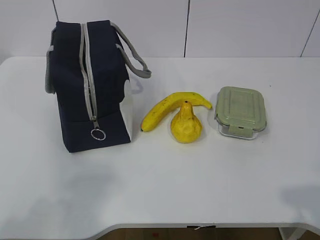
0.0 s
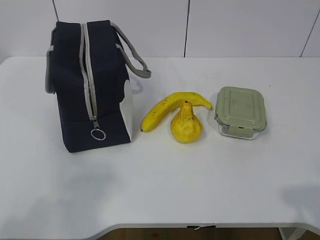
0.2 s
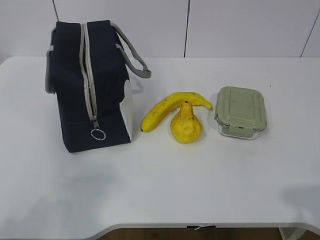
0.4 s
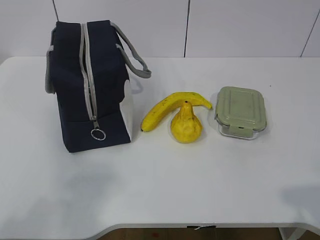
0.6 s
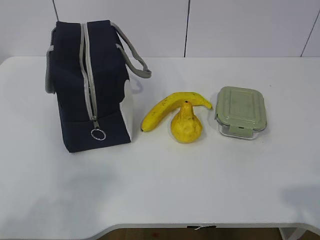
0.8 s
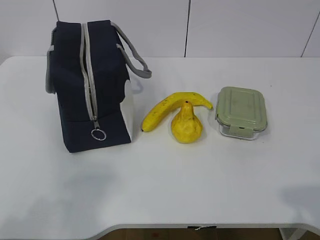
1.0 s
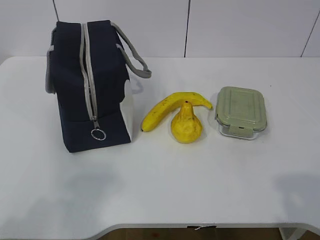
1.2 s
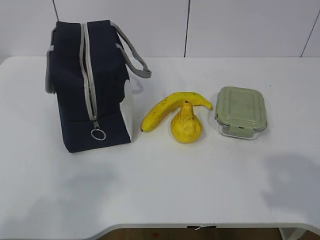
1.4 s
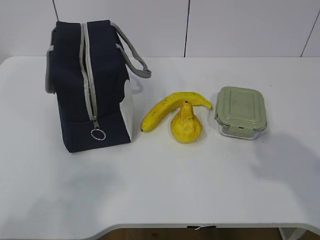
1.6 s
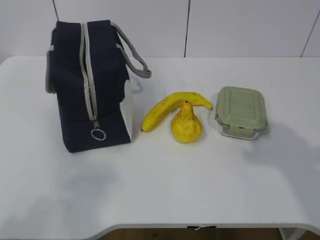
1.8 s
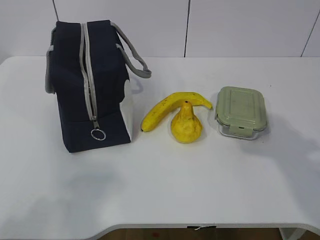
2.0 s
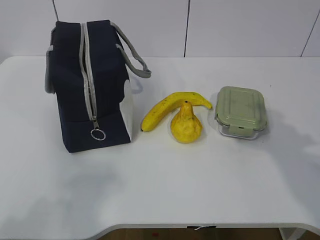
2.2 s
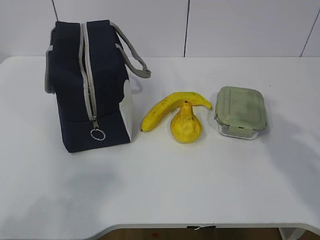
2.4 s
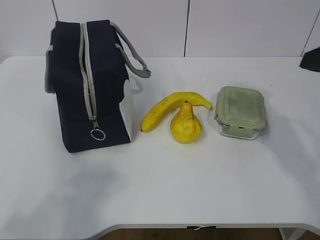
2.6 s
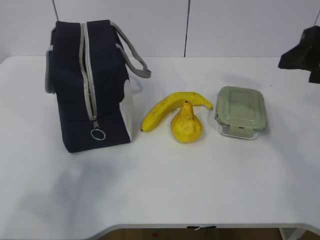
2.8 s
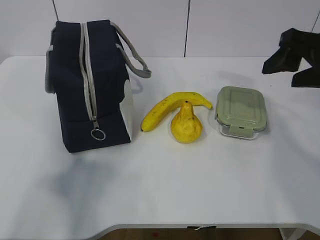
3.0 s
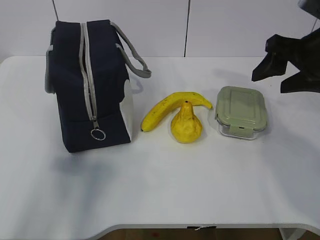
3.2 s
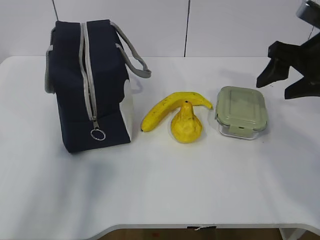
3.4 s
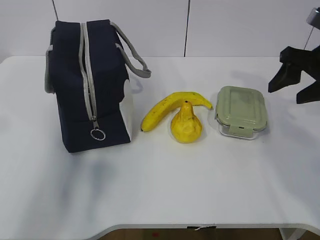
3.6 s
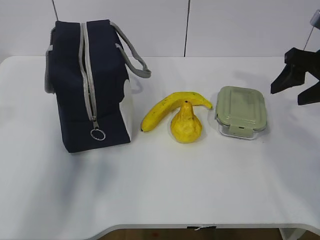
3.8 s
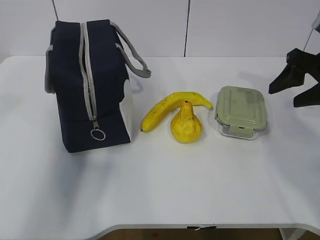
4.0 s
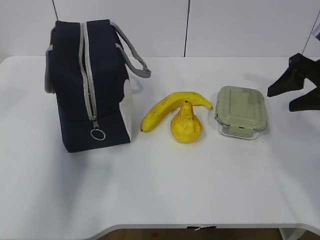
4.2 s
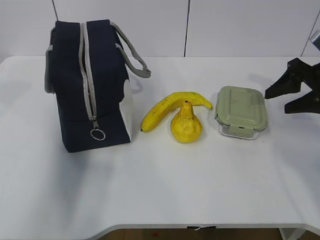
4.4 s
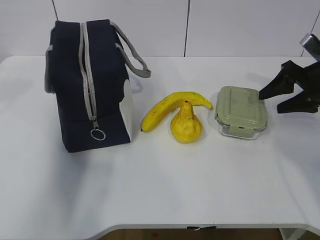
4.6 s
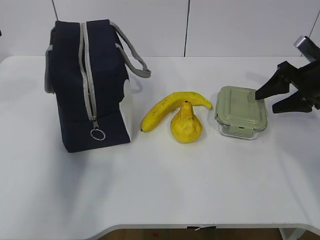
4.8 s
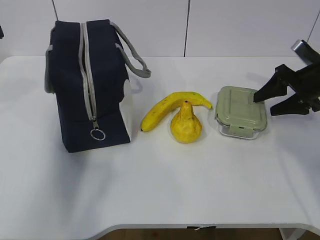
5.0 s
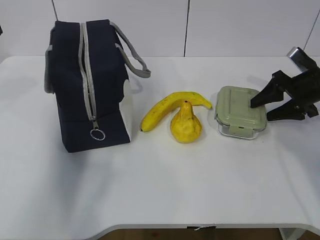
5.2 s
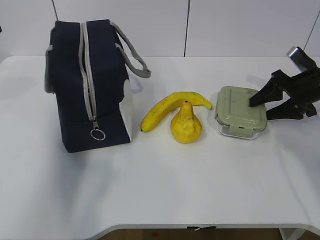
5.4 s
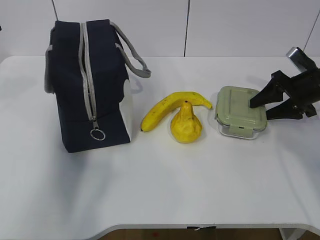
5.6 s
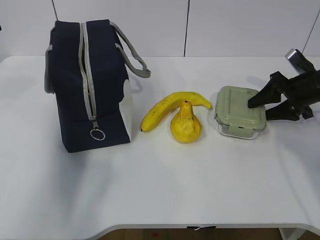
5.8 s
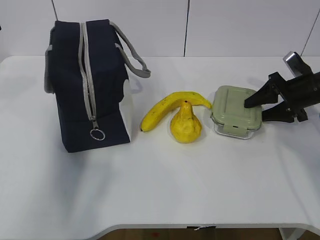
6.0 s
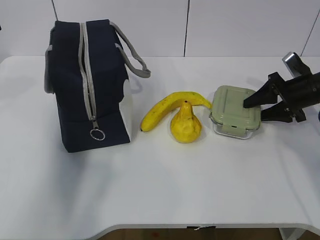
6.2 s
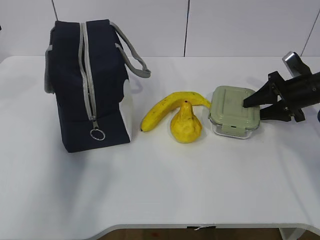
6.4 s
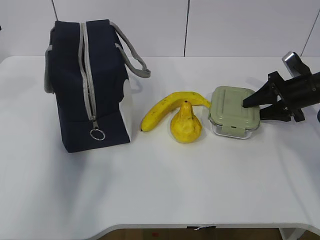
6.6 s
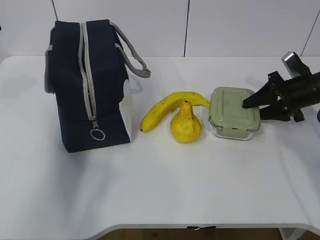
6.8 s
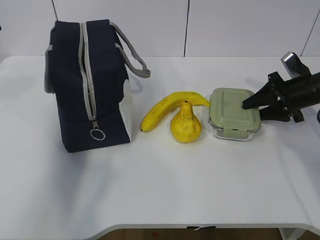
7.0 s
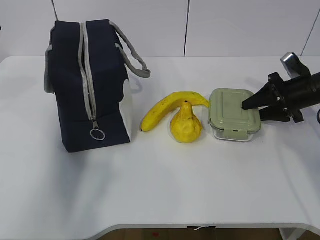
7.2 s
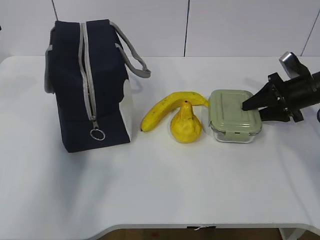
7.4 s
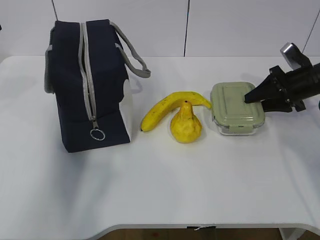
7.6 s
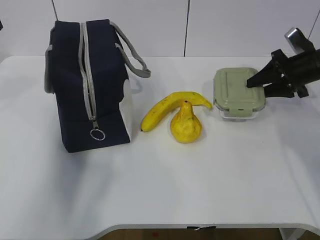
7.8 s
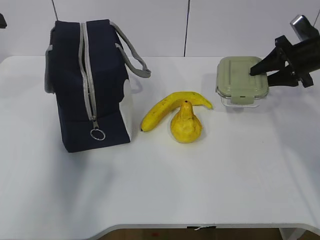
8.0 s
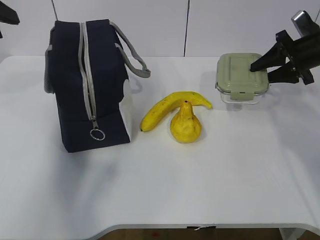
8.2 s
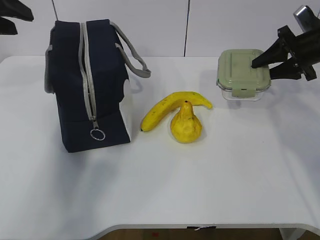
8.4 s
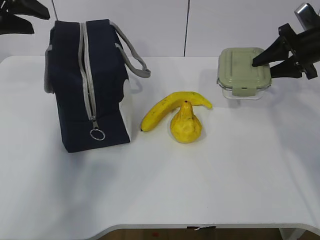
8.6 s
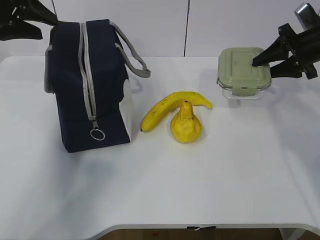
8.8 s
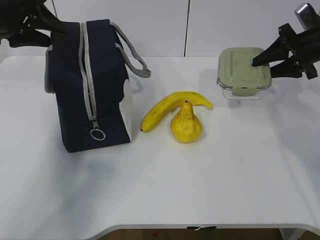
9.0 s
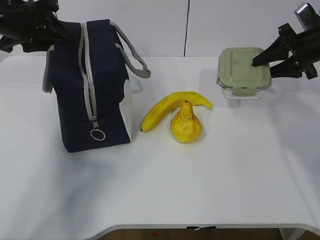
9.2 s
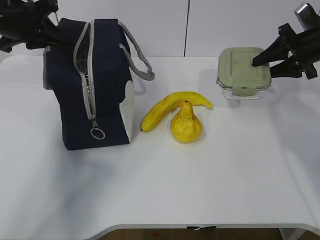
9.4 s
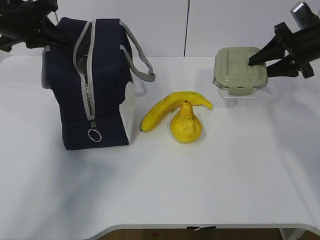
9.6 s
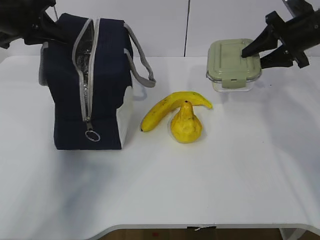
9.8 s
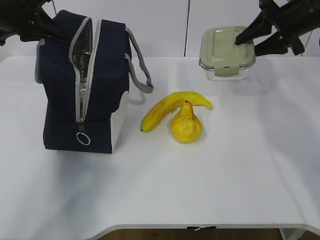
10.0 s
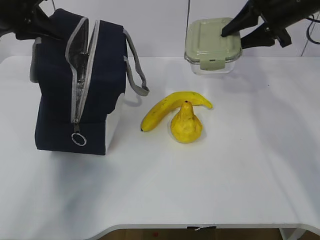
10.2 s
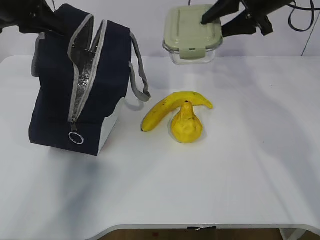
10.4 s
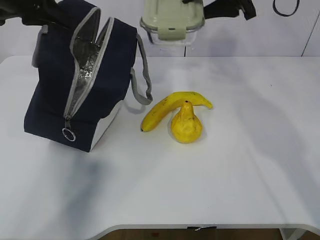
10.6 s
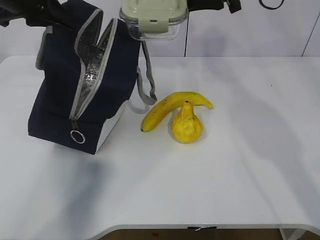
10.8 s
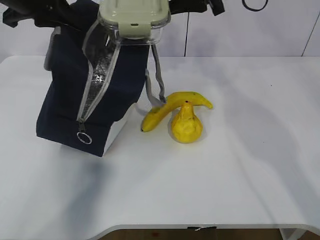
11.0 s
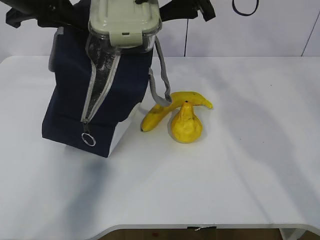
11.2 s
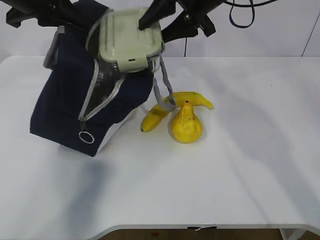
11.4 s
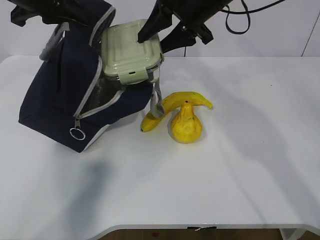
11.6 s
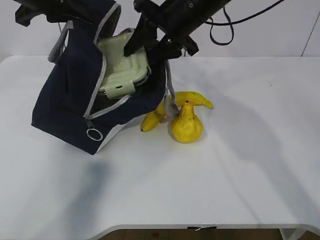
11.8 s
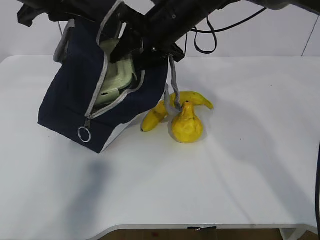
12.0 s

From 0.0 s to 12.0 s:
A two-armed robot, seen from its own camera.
Step, from 0.0 s to 5.6 s: Grab the lunch box with your right hand.
Step, from 6.0 s to 9.2 s: Grab the lunch bag with your left hand.
Step, from 9.4 s to 11.6 s: Place it into the bag with your right hand.
From 1.6 s to 3.0 s: The left gripper moves forward, some 5 cm, while the right gripper shifts about 25 cm forward.
From 3.0 s to 4.4 s: The left gripper shifts about 20 cm forward; the right gripper heads downward, to the right and forward, covering approximately 15 cm.
From 4.4 s to 6.0 s: The right gripper travels downward by some 5 cm.
From 6.0 s to 7.6 s: There are only small adjustments of the grippers.
From 7.6 s to 9.0 s: The left gripper moves forward, approximately 10 cm; the right gripper moves upward, about 5 cm.
From 9.0 s to 10.4 s: The right gripper moves to the left and upward, roughly 15 cm. Meanwhile the left gripper closes.
From 10.4 s to 12.0 s: The left gripper shifts by about 5 cm, while the right gripper is displaced to the left by roughly 15 cm.

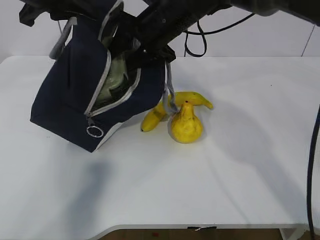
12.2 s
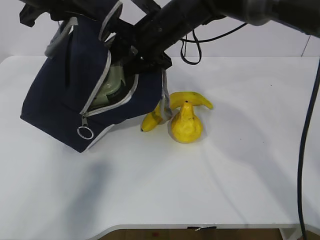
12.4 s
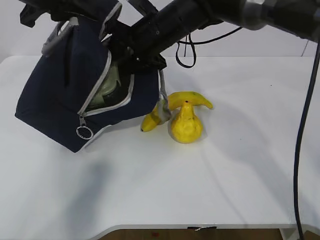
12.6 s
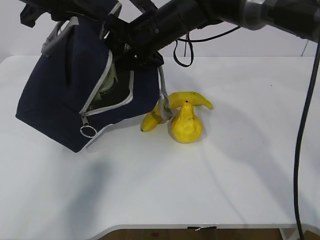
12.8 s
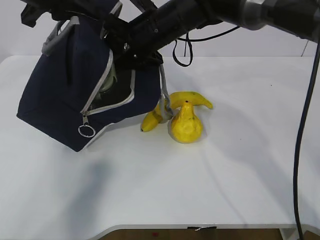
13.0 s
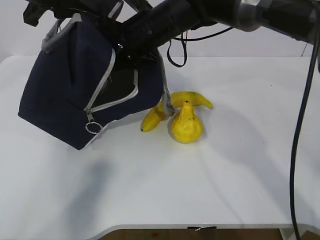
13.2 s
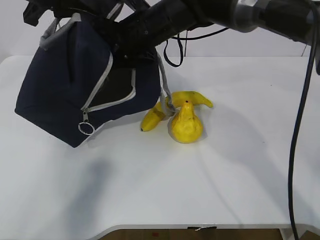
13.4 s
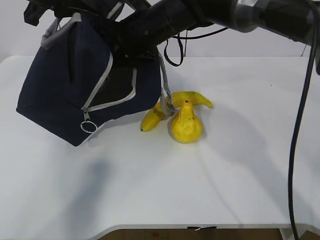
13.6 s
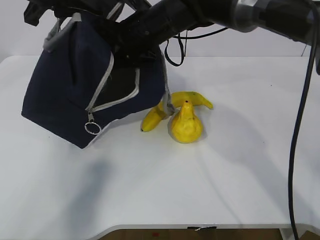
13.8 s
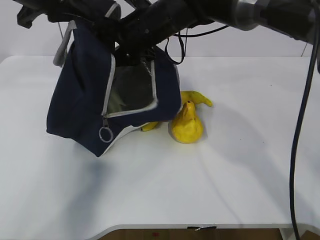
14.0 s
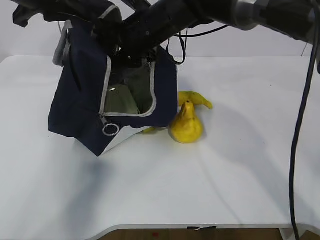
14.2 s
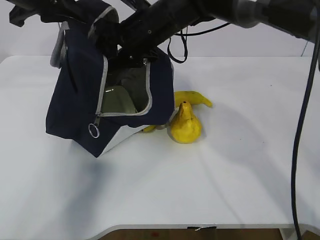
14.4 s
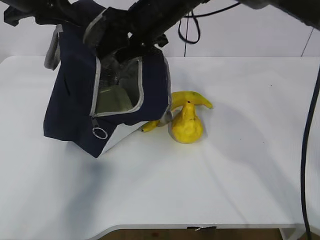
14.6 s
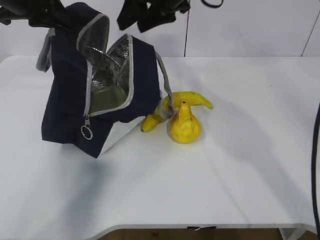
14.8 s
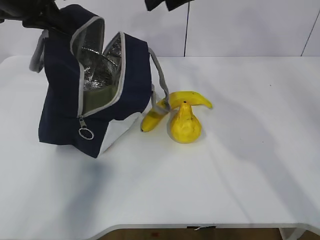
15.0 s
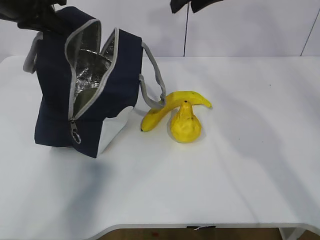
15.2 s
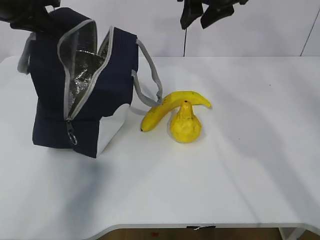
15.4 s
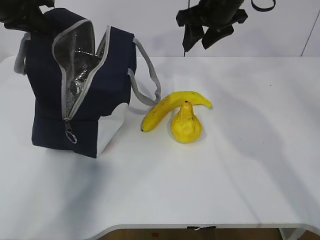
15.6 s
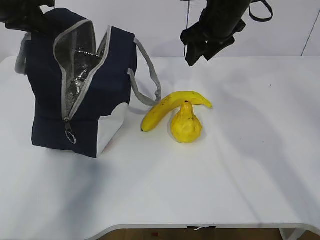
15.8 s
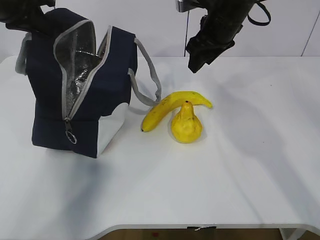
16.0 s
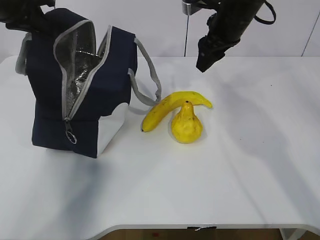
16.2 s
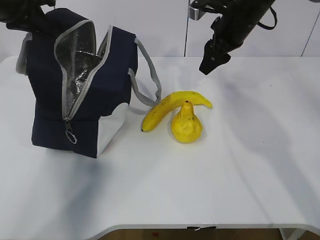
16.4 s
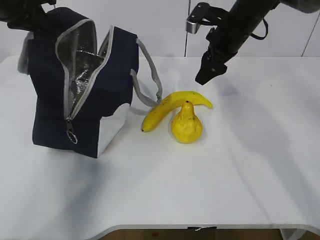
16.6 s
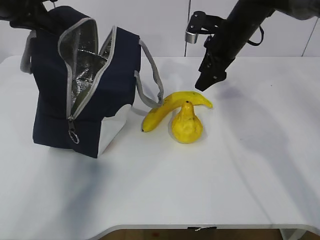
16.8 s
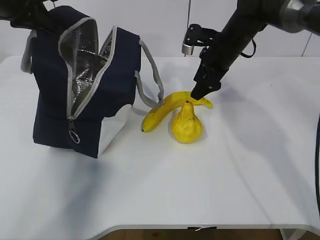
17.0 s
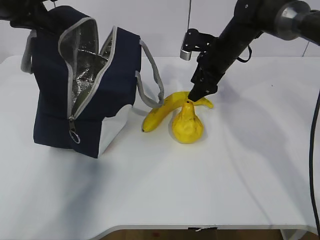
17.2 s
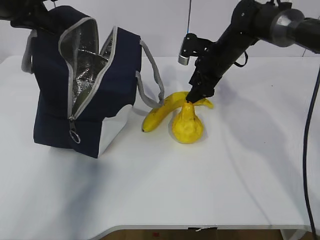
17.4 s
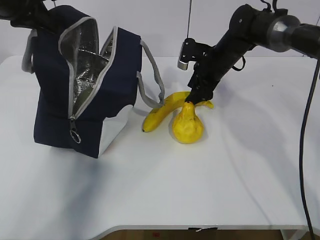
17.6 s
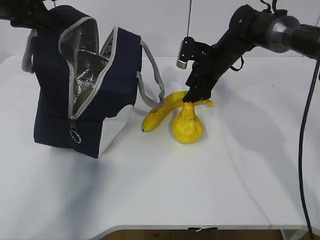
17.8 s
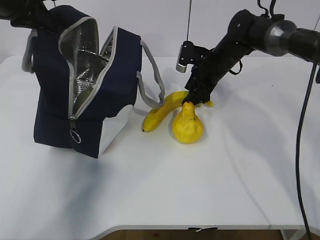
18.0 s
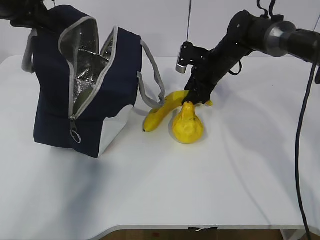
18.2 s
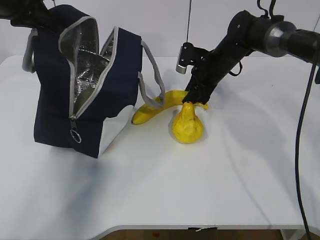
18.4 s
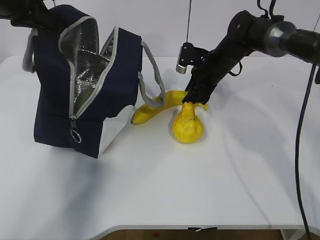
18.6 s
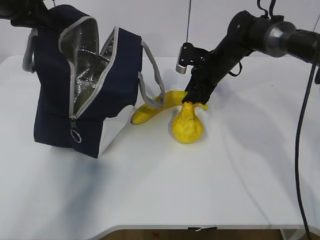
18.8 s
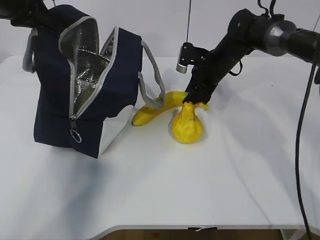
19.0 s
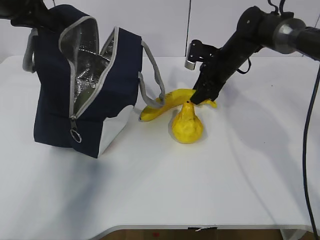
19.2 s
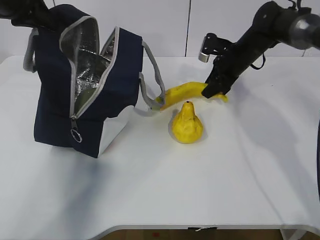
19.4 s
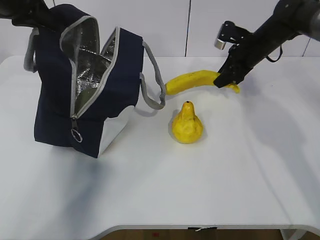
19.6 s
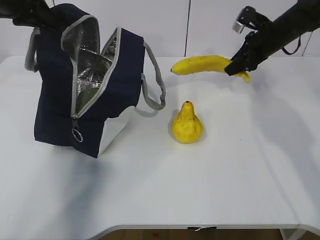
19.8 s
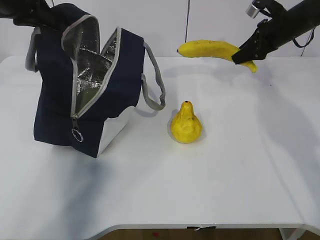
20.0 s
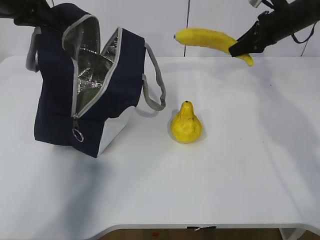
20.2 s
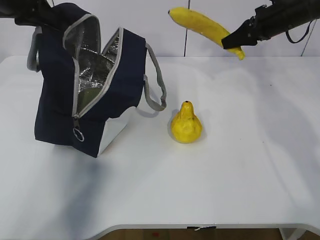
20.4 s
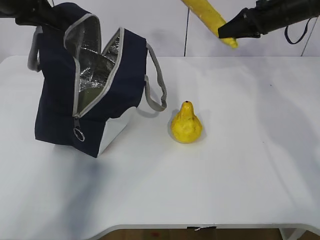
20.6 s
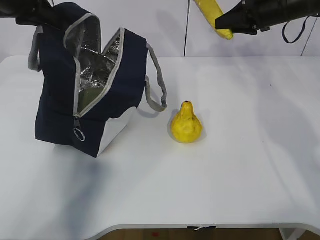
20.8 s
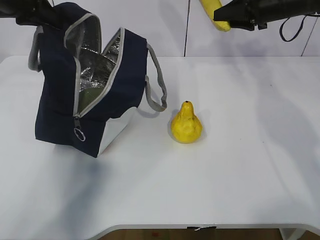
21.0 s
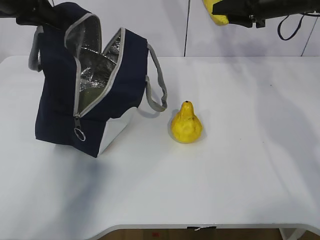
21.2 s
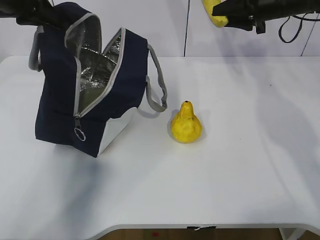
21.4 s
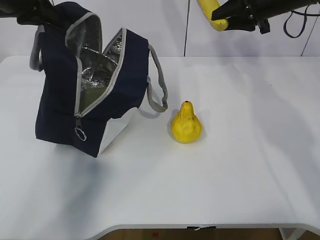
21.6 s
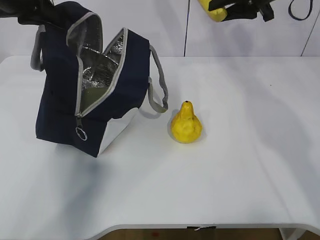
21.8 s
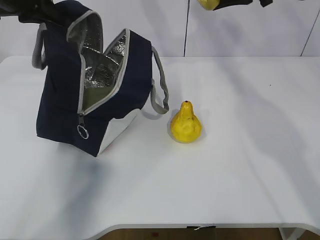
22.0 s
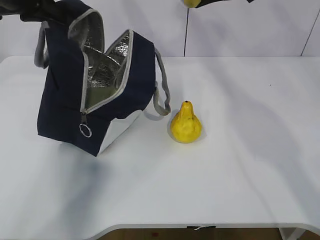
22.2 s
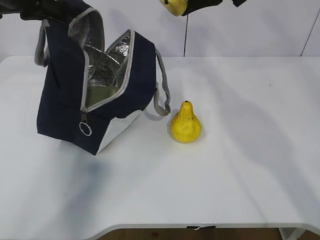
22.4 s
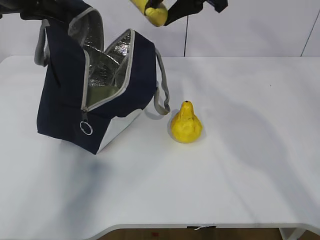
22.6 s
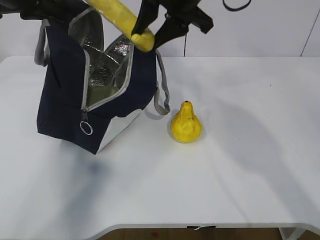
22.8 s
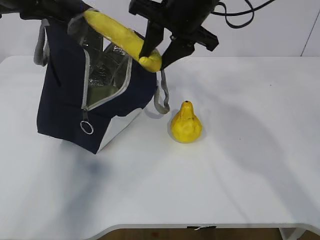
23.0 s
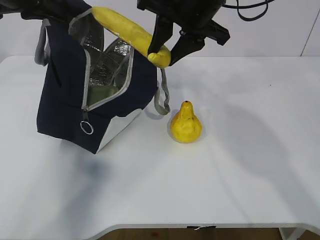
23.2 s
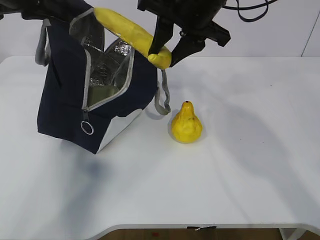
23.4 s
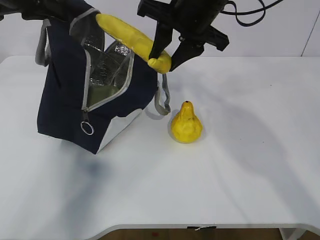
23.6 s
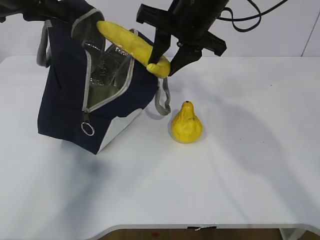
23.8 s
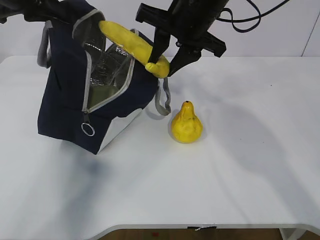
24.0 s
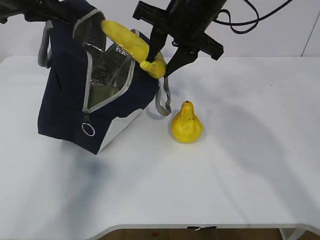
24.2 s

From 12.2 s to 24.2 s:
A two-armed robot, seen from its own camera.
Step, from 12.2 s to 15.6 s: Grab the banana with your right hand.
Step, from 15.8 s to 22.4 s: Place it into the bag with your right hand.
From 12.2 s to 13.8 s: There are only small adjustments of the grippers.
From 13.8 s to 15.2 s: The right gripper travels to the right and upward by some 15 cm.
From 15.2 s to 16.6 s: The right gripper heads downward, covering about 10 cm.
From 16.6 s to 18.2 s: The right gripper is displaced downward by about 10 cm.
From 18.2 s to 19.8 s: The right gripper goes about 15 cm to the right and upward.
From 19.8 s to 21.2 s: The right gripper moves upward, roughly 5 cm.
From 21.2 s to 22.6 s: The right gripper travels to the left, backward and upward by roughly 25 cm.
From 22.6 s to 24.2 s: The right gripper moves downward, roughly 5 cm.
